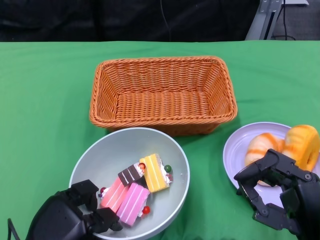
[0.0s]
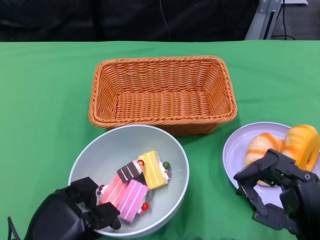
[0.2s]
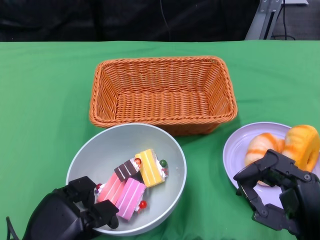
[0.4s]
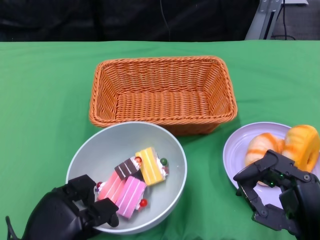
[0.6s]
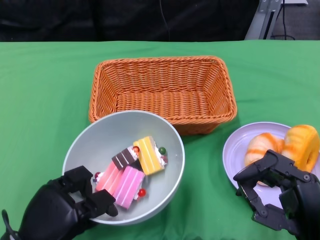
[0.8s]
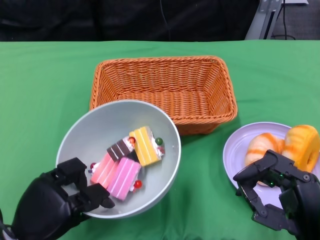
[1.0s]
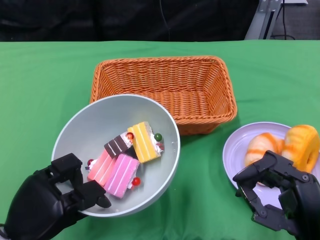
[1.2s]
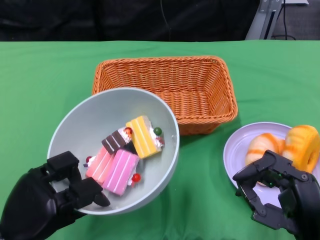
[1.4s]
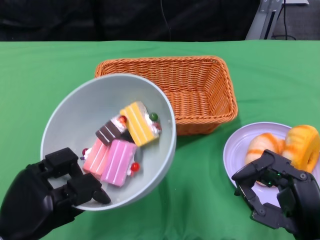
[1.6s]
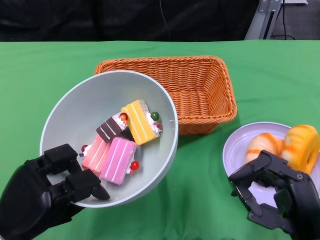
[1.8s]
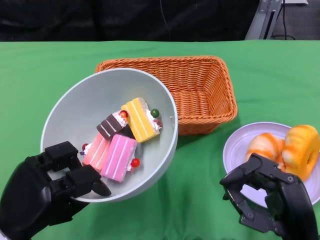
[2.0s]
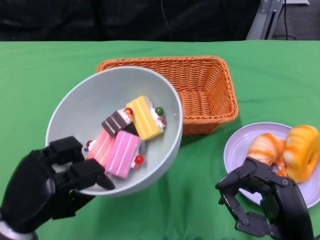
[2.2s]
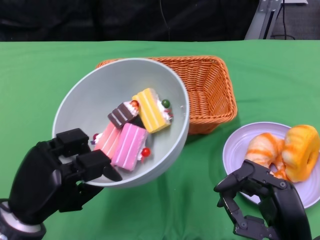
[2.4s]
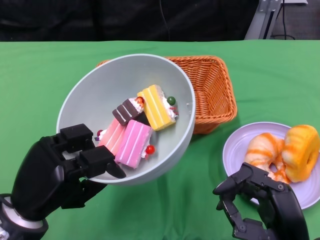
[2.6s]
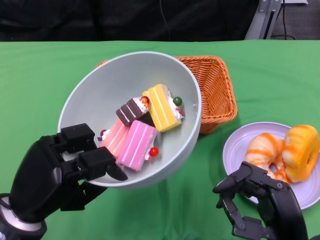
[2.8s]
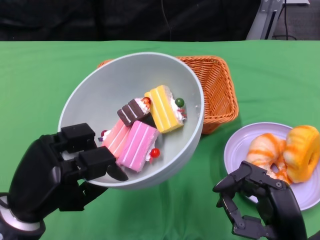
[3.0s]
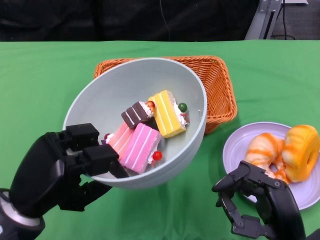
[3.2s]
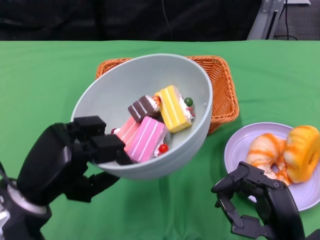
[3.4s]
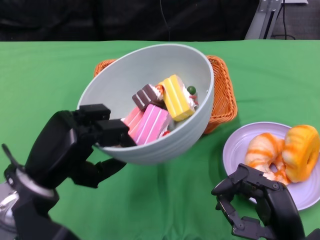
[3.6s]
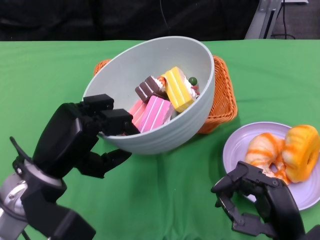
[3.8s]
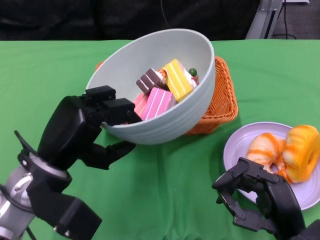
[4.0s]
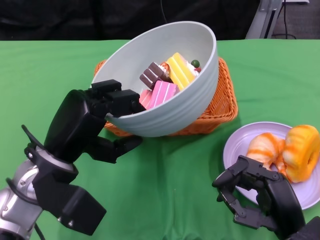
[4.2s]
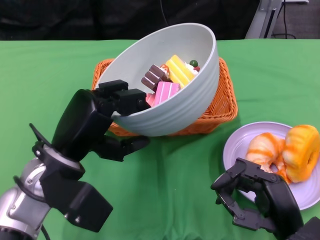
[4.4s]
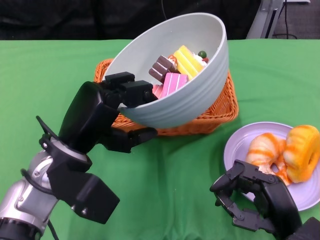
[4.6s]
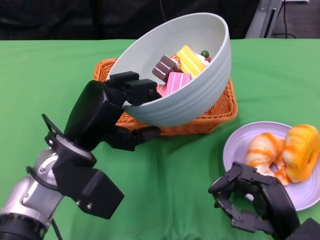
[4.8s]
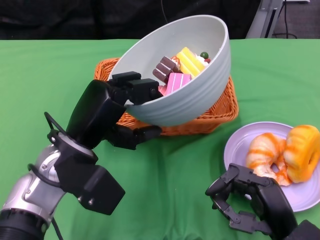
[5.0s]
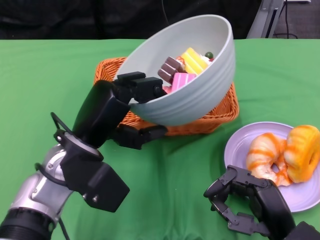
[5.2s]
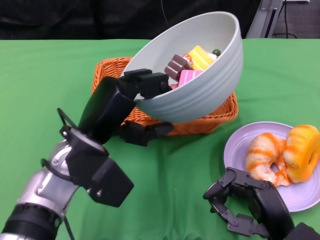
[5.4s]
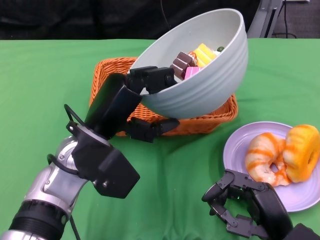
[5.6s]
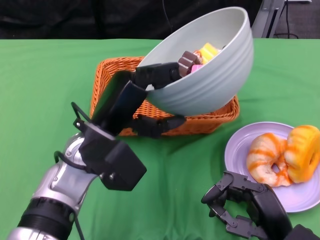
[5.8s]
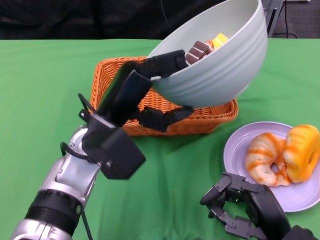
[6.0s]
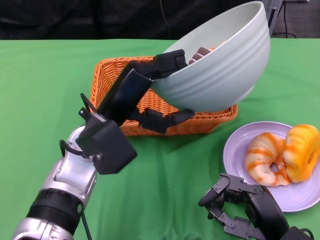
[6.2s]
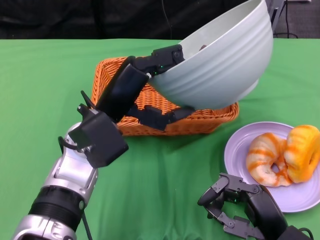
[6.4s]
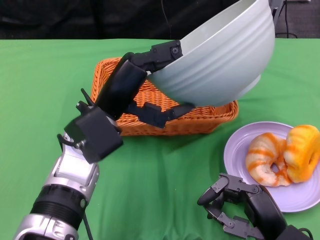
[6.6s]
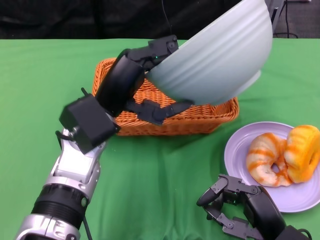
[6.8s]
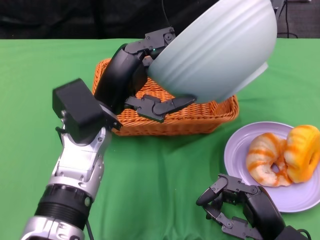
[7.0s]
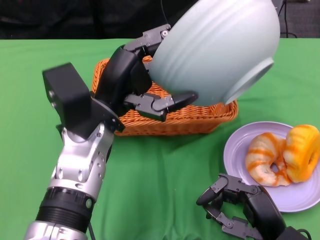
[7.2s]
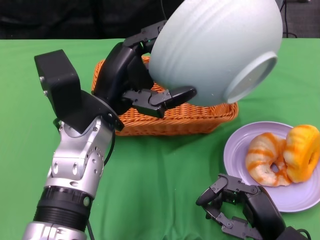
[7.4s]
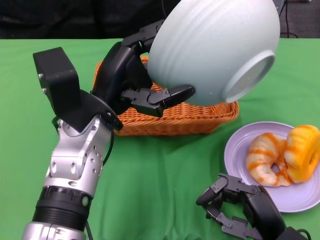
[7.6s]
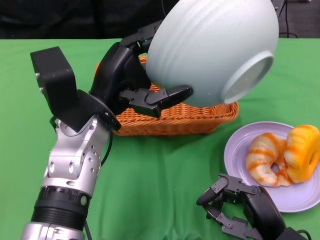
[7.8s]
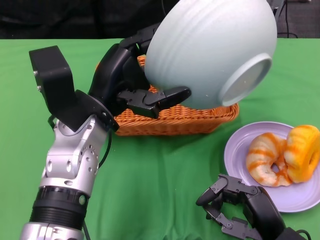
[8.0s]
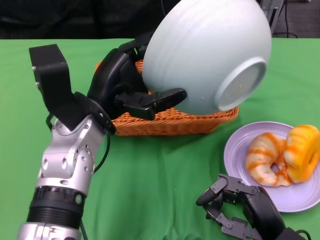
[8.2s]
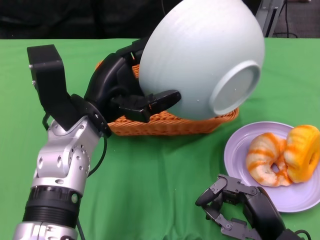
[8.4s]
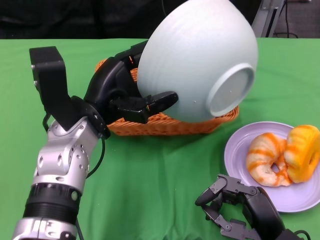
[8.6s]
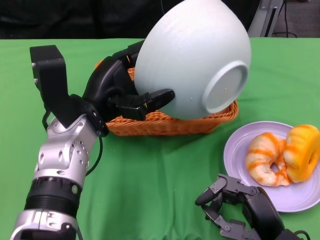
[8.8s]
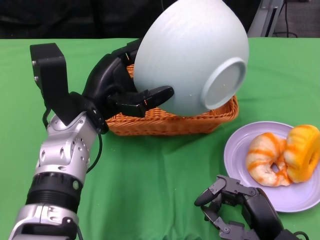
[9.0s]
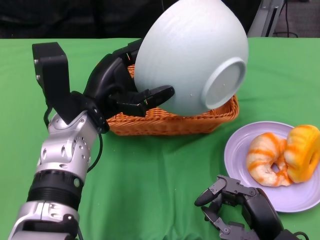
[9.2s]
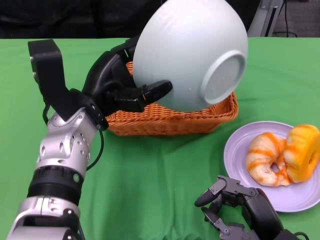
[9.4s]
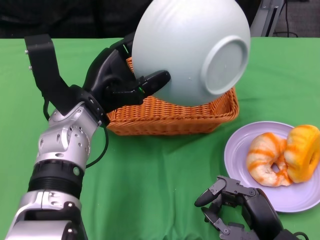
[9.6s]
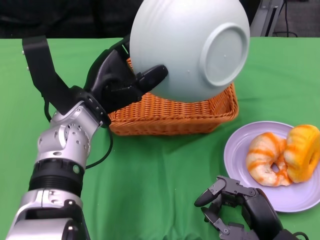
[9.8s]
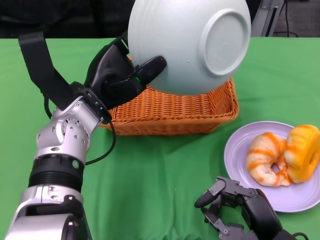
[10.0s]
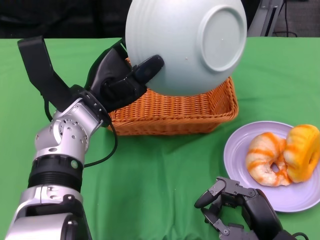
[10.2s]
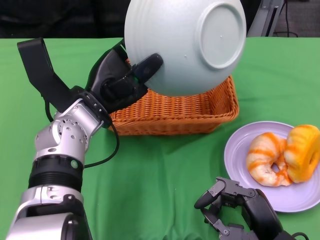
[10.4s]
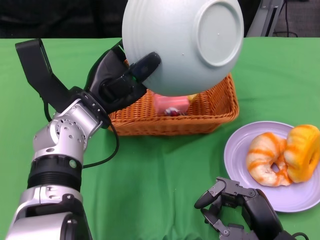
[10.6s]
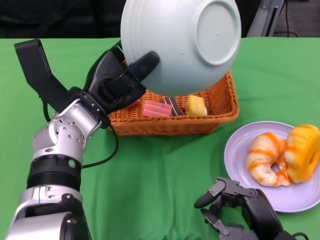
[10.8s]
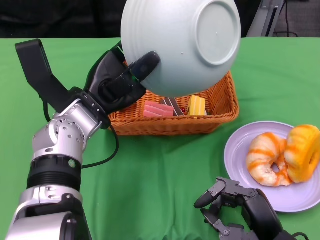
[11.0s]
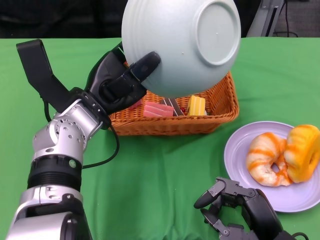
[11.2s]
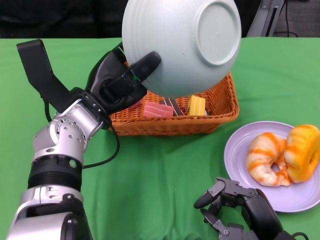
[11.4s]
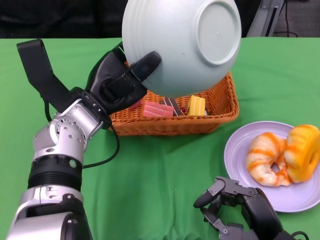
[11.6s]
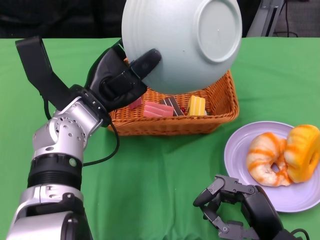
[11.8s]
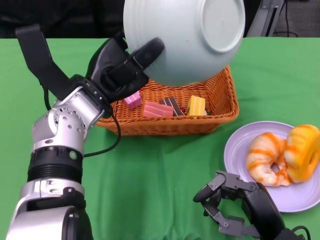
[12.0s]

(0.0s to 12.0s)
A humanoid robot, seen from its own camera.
Step, 0.6s - 11.0s: Pour the cake into the basket with the left gripper.
0.0s - 1.6s: The left hand moves approximately 5 cm.
3.0s - 4.4s: The left hand is displaced forward by approximately 5 cm.
4.4s - 6.0s: The left hand shifts roughly 5 cm to the right.

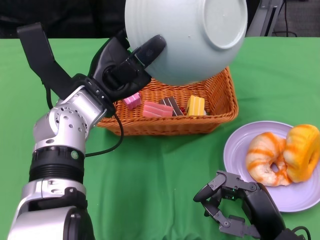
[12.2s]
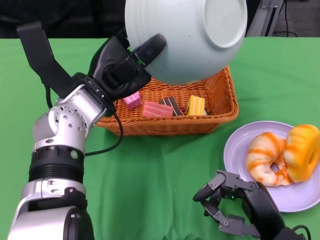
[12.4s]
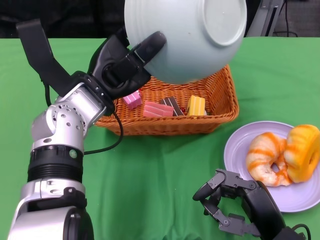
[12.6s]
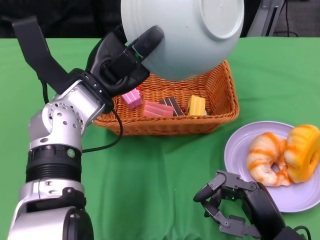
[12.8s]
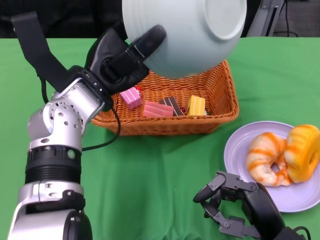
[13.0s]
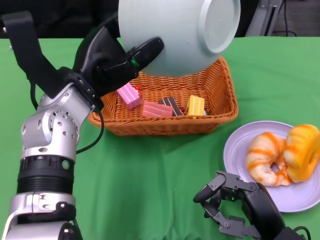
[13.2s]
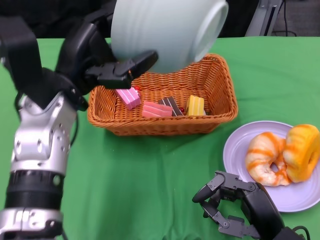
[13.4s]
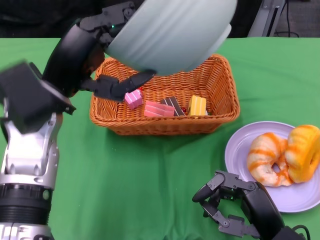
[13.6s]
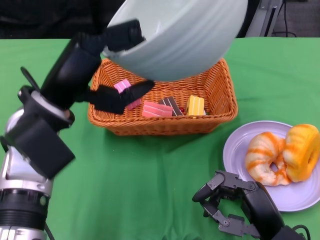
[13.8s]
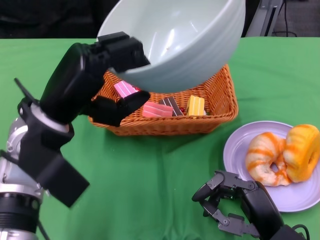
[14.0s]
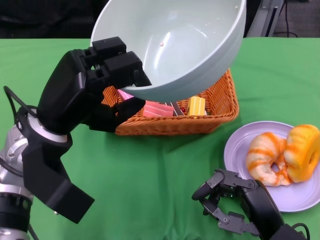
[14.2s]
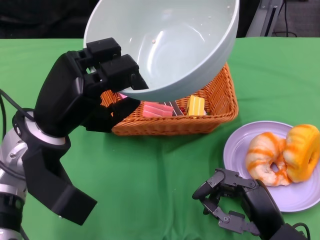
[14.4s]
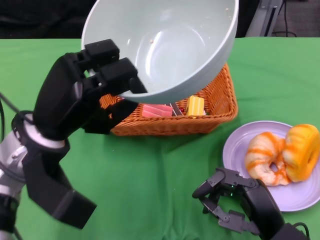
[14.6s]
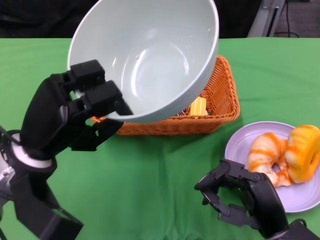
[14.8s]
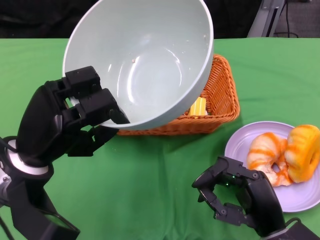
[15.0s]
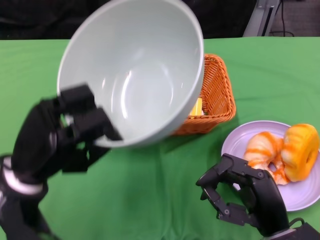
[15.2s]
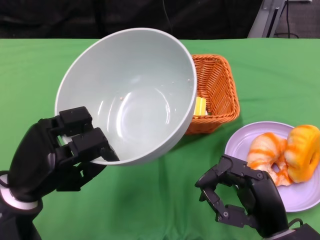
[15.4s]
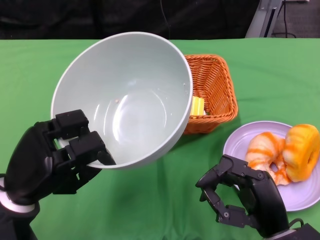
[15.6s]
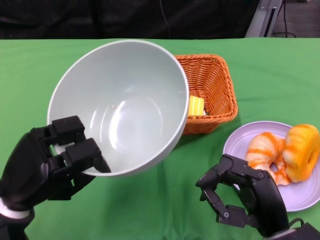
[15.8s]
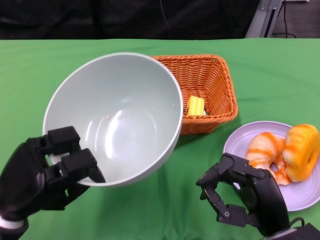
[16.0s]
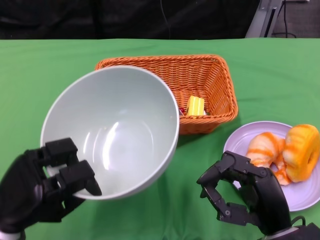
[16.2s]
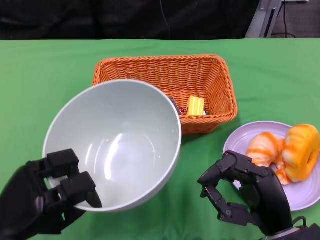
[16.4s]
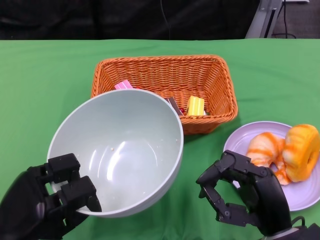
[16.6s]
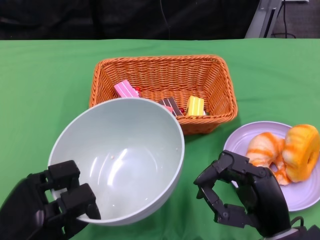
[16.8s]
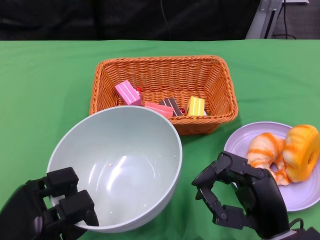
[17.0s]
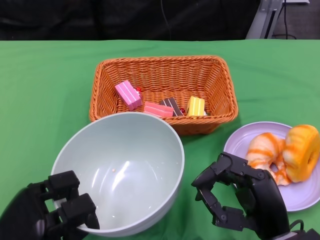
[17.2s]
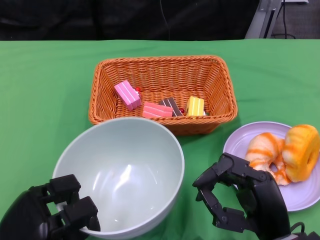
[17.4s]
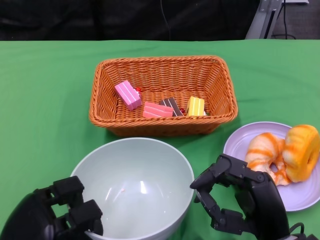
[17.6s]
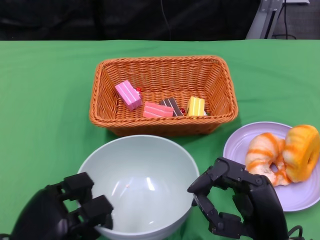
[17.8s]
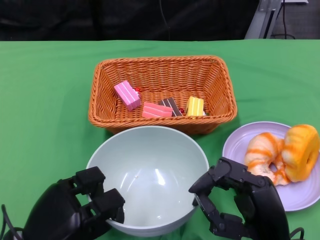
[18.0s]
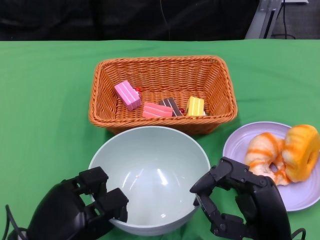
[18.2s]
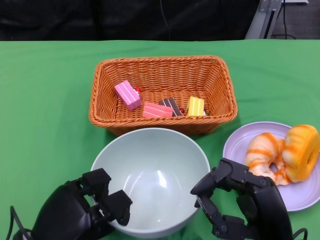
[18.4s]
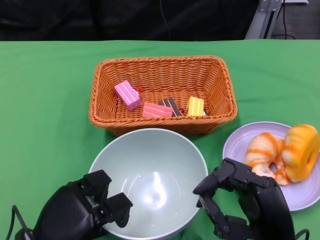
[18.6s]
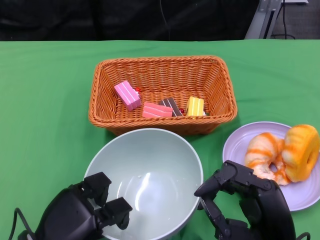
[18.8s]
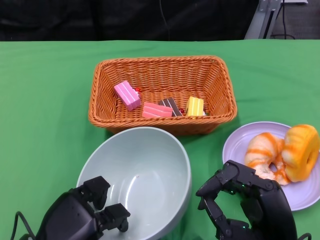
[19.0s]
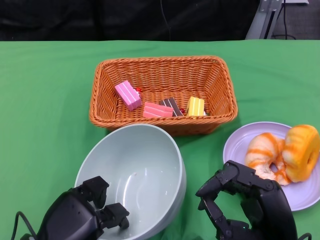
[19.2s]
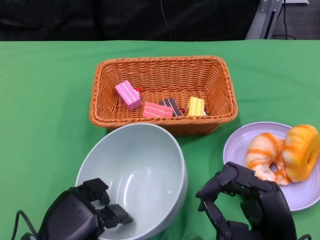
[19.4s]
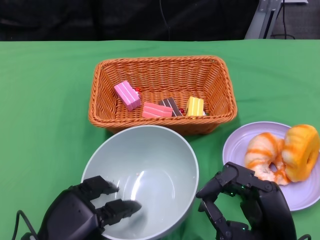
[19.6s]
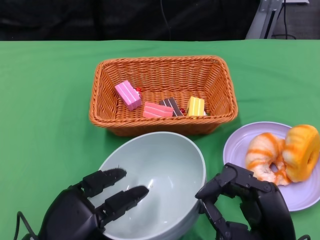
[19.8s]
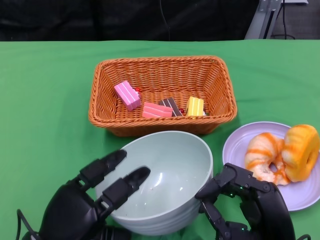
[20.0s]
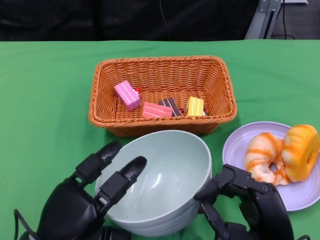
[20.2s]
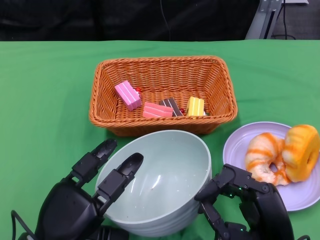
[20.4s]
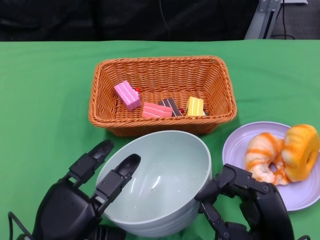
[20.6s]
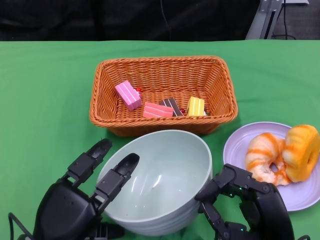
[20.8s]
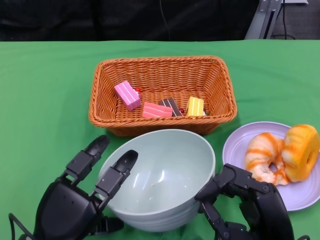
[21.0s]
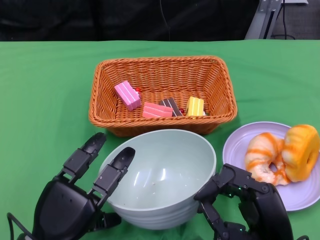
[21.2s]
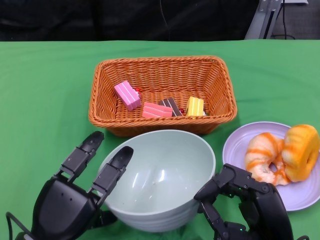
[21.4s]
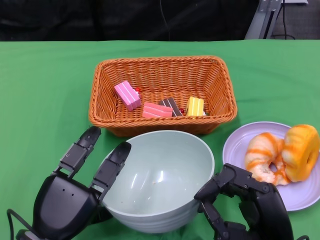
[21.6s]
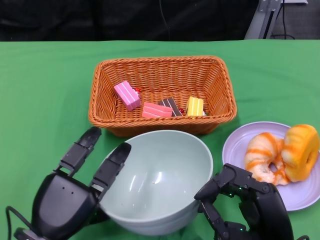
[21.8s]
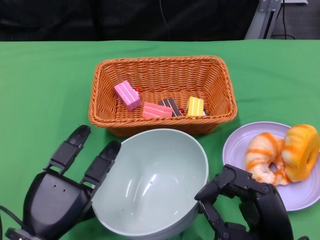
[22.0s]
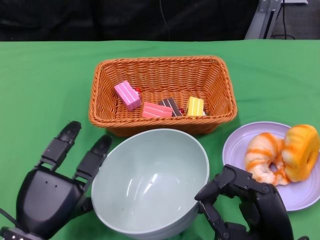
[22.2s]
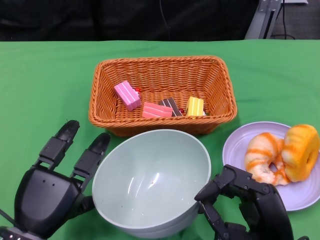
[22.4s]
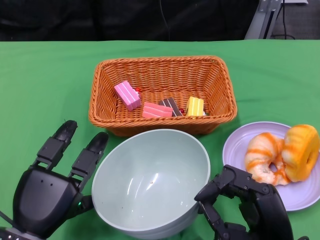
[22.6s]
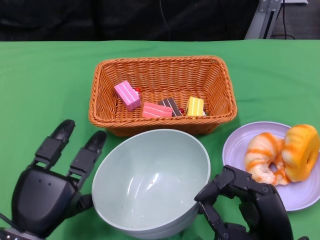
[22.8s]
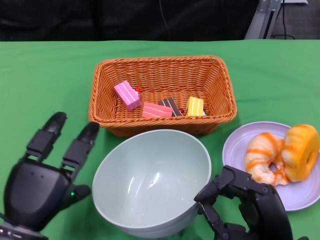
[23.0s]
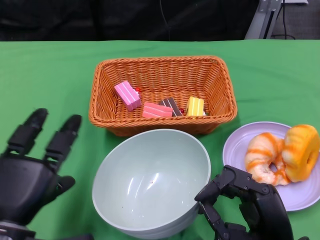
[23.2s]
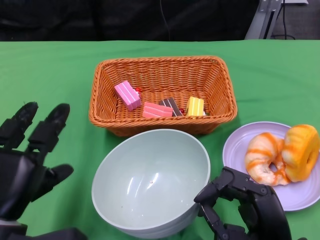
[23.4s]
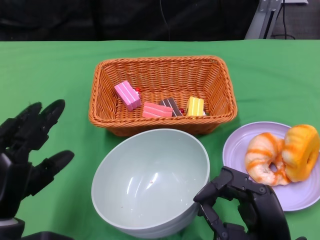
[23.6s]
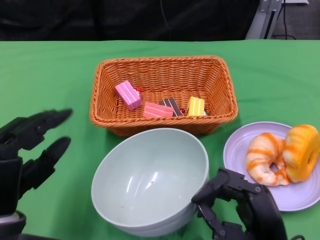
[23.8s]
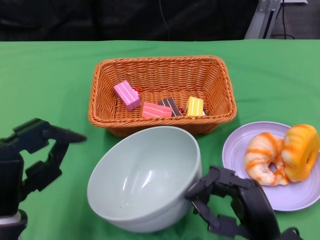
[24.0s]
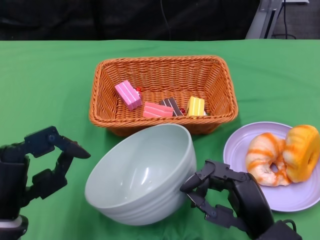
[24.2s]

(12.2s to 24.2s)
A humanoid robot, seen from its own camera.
Step, 12.2s - 22.4s: Place the bowl on the table with the left gripper.
12.2s - 13.8s: The left hand travels backward by roughly 5 cm.
13.8s - 15.2s: The left hand heads downward, covering about 10 cm.
15.2s - 16.6s: The left hand is displaced backward and downward by approximately 10 cm.
18.2s - 19.8s: The hands move only a little.
19.8s - 21.2s: The hands move only a little.
21.2s - 22.6s: There are only small adjustments of the hands.
